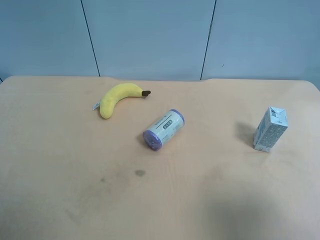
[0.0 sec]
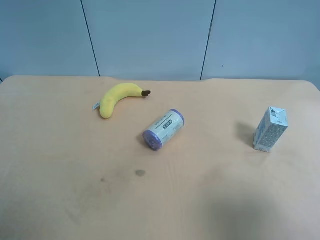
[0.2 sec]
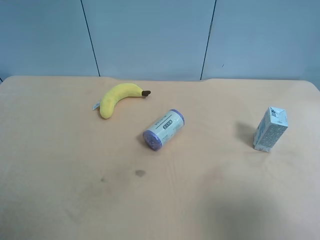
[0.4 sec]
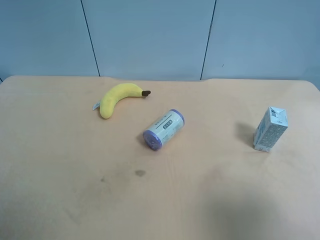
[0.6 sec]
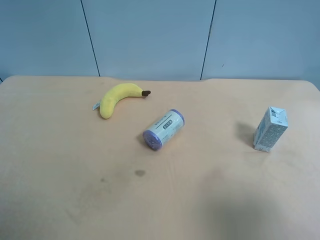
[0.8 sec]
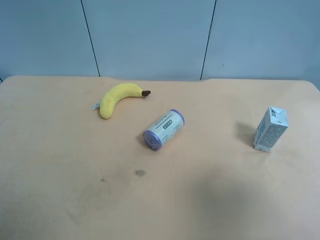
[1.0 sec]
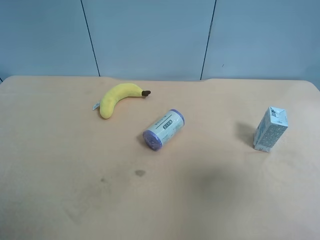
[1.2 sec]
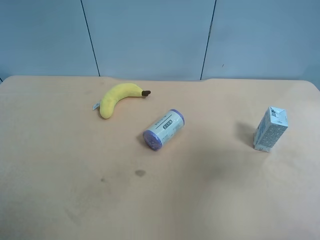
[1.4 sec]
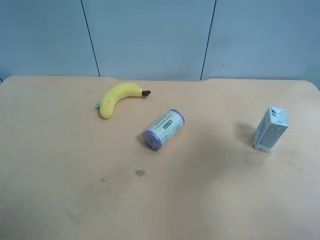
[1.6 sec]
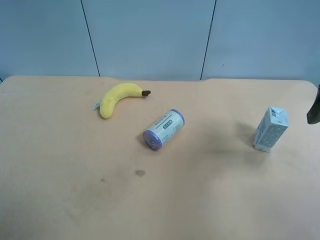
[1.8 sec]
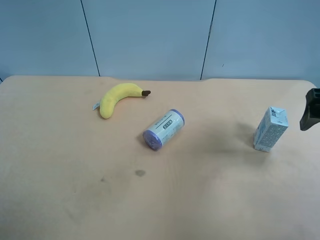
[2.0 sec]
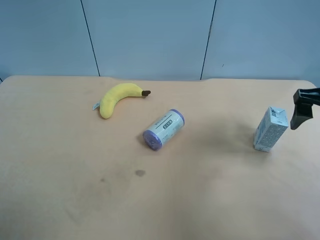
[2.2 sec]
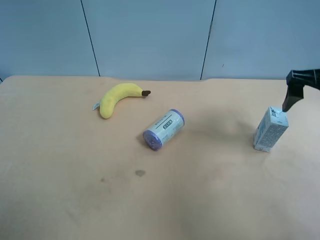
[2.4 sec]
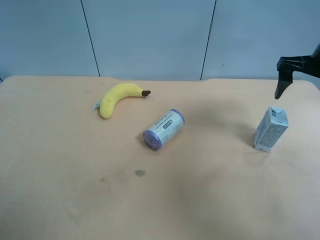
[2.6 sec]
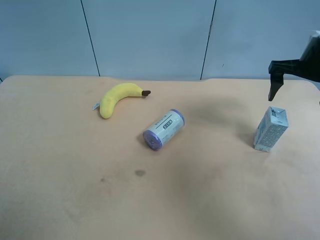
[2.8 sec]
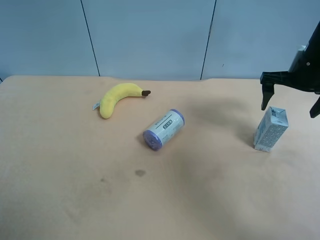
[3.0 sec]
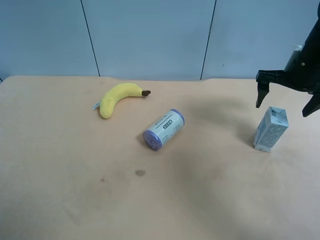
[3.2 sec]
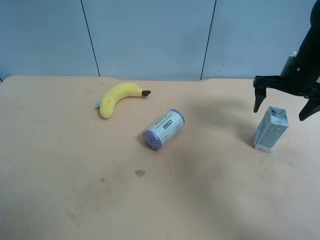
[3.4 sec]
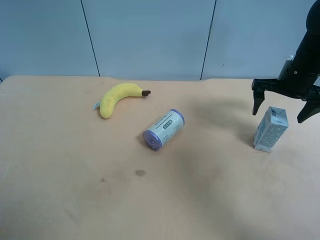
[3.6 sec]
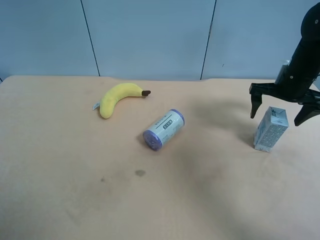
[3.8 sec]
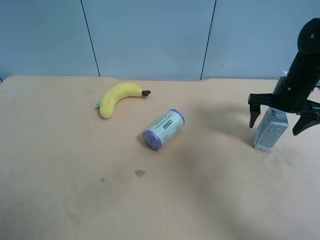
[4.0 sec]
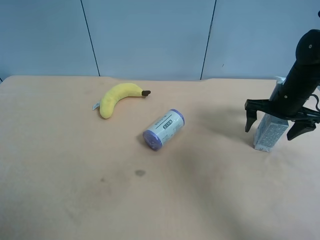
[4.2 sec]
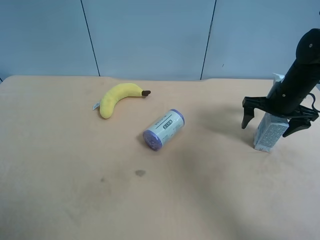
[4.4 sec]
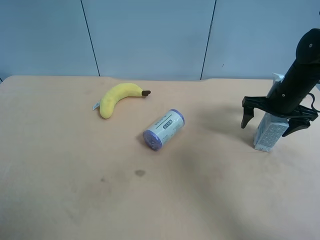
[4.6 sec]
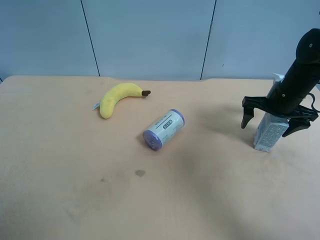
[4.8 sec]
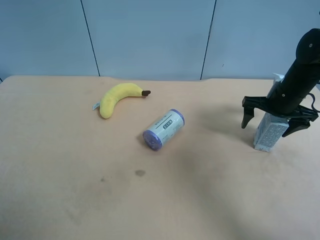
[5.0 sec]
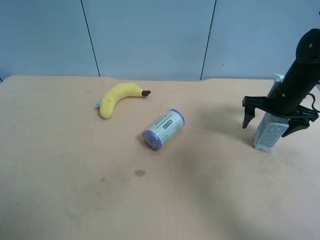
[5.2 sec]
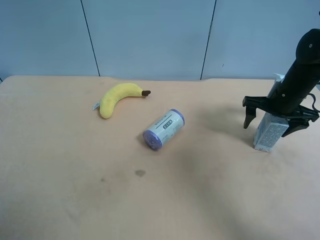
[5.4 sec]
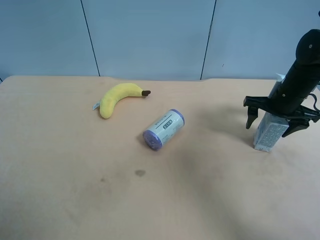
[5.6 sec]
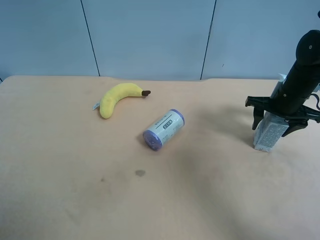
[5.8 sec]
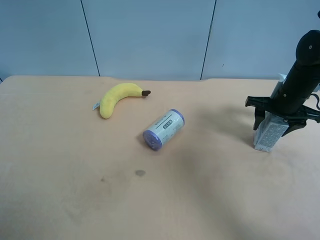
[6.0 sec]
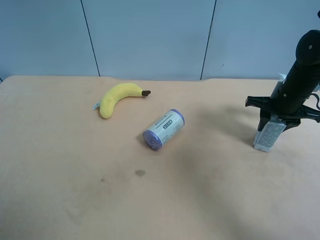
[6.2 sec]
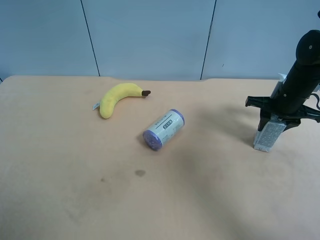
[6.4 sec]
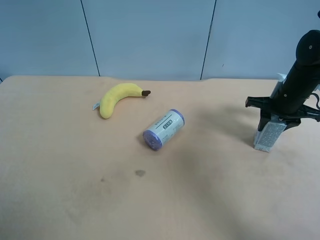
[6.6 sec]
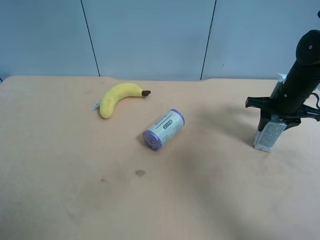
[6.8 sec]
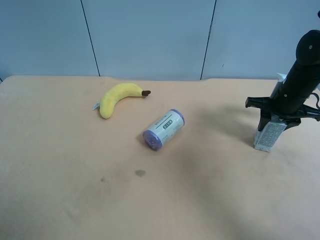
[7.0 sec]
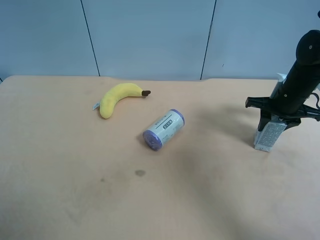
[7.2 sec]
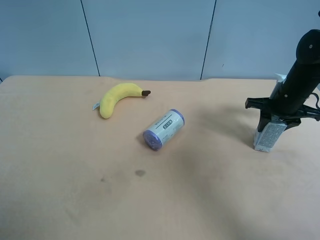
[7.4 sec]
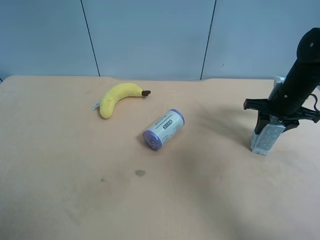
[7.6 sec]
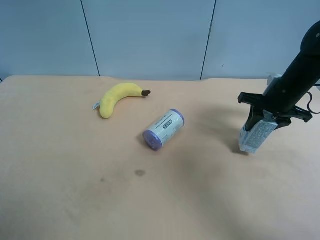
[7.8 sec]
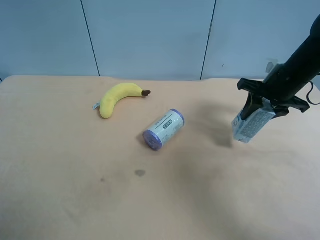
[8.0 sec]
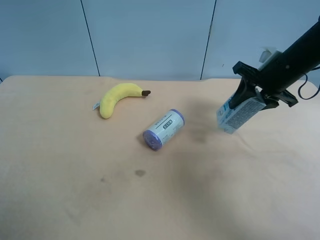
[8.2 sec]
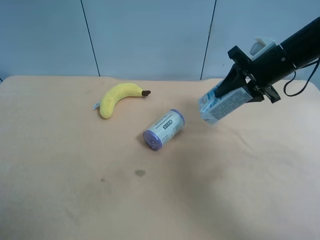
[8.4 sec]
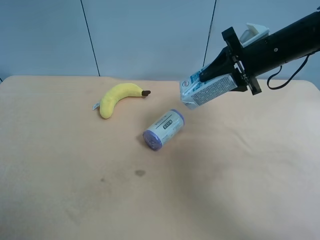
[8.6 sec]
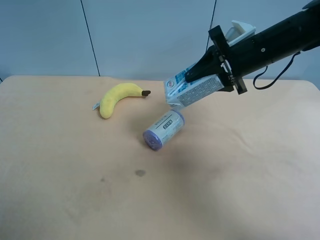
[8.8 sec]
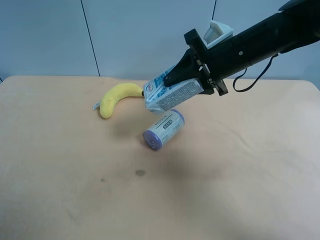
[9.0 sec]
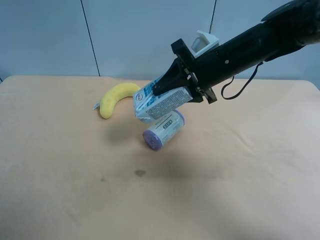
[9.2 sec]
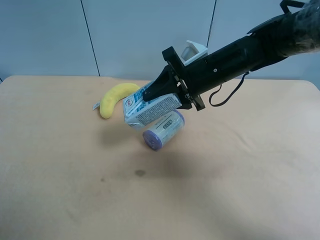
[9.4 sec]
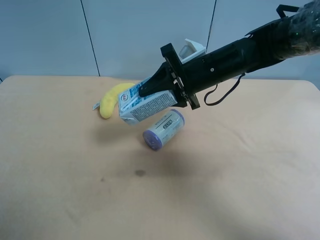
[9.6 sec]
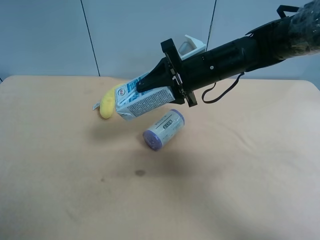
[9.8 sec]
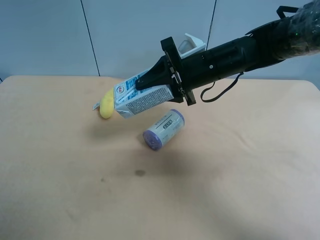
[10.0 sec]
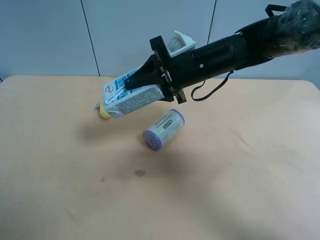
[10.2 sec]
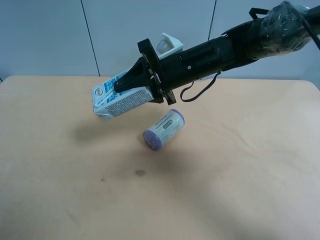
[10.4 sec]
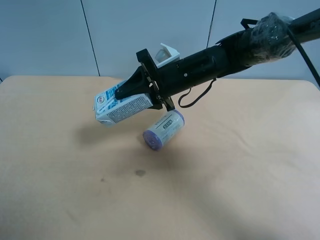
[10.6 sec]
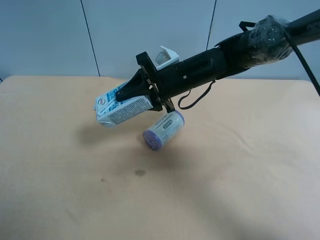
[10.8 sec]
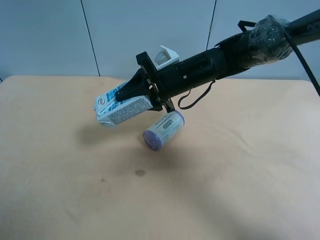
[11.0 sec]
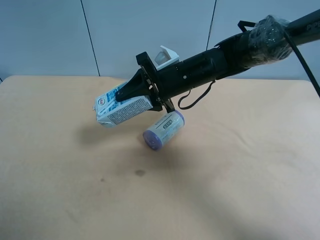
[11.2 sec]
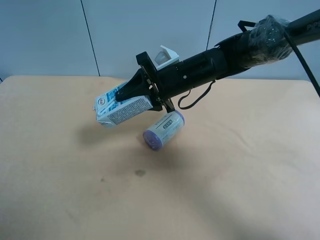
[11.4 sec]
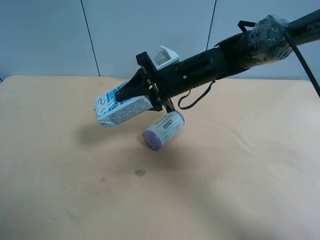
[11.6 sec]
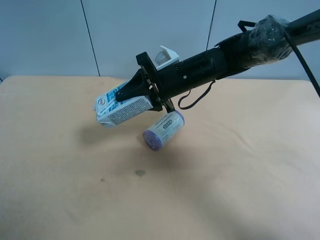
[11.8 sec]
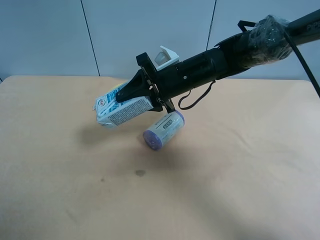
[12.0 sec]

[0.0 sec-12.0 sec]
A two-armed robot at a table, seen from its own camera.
Task of the whole recording: use the right gripper to pick up the item and transfer it from the right gripper to the left gripper.
0.0 sec to 1.6 sec: The right gripper heads forward, covering about 15 cm.
1.6 sec to 3.0 sec: The right gripper heads forward and downward, covering some 20 cm.
3.0 sec to 4.4 sec: The right gripper heads downward, covering roughly 5 cm.
4.4 sec to 6.0 sec: The right gripper closes its fingers.
6.0 sec to 7.6 sec: The grippers stay close to where they were, moving slightly.
7.6 sec to 9.0 sec: The right gripper goes about 20 cm to the left and upward.
9.0 sec to 10.4 sec: The right gripper is displaced to the left by approximately 5 cm.
10.4 sec to 12.0 sec: The left gripper travels forward by roughly 5 cm.

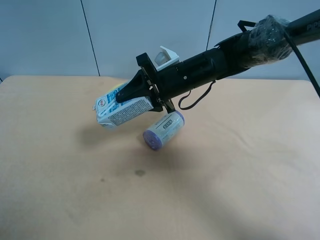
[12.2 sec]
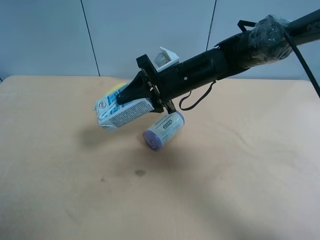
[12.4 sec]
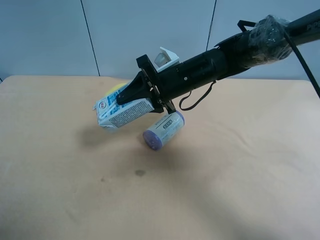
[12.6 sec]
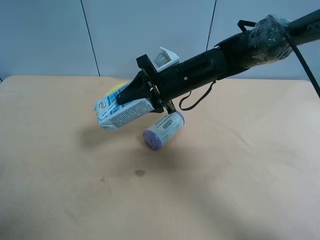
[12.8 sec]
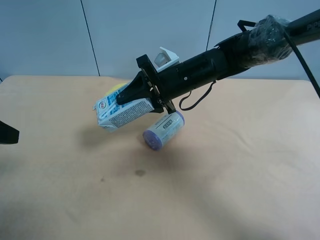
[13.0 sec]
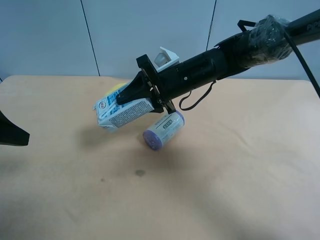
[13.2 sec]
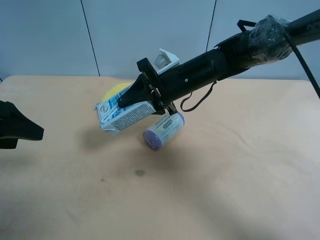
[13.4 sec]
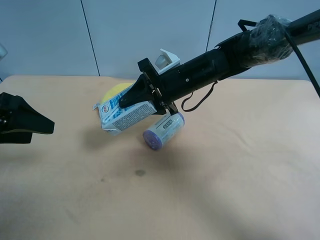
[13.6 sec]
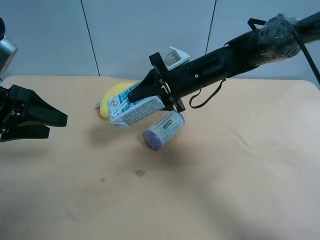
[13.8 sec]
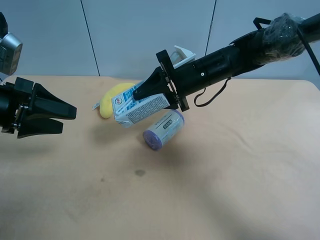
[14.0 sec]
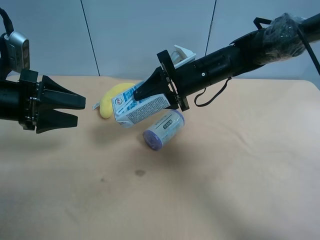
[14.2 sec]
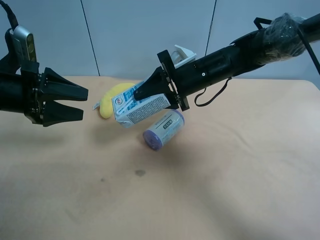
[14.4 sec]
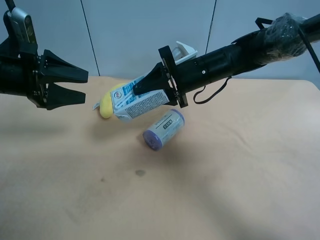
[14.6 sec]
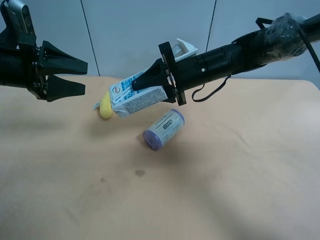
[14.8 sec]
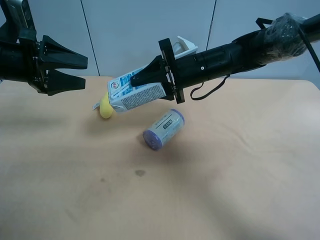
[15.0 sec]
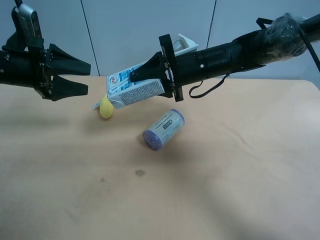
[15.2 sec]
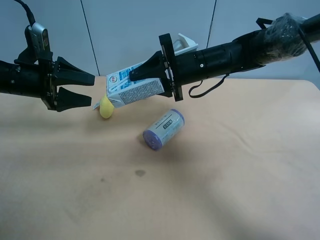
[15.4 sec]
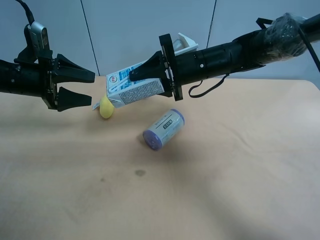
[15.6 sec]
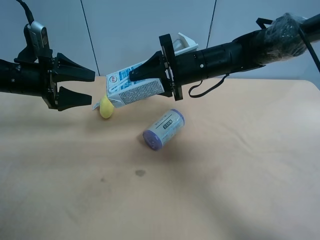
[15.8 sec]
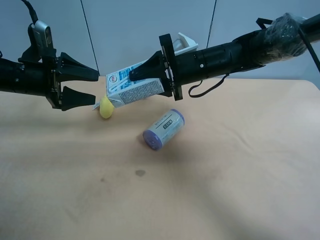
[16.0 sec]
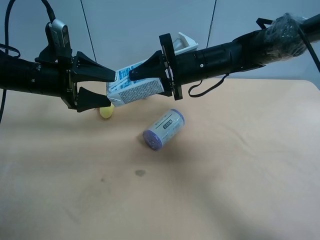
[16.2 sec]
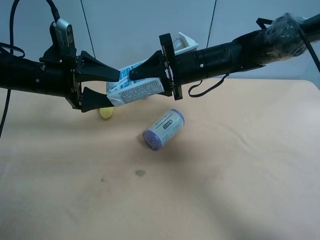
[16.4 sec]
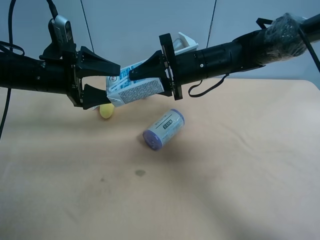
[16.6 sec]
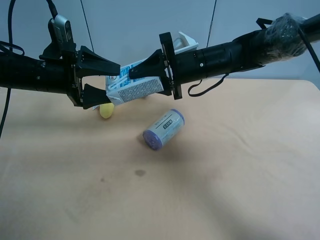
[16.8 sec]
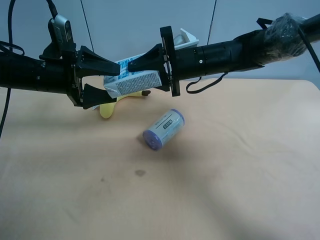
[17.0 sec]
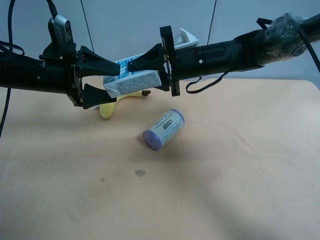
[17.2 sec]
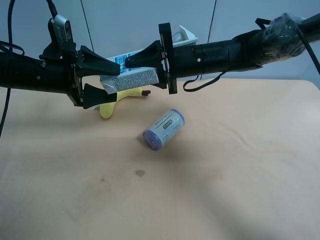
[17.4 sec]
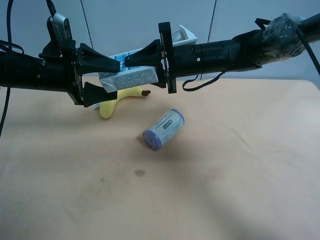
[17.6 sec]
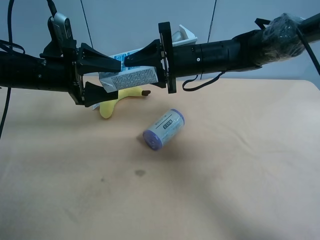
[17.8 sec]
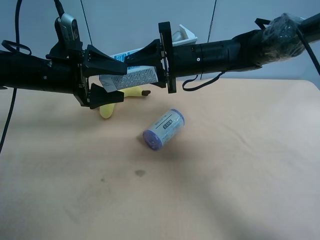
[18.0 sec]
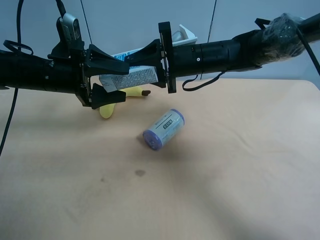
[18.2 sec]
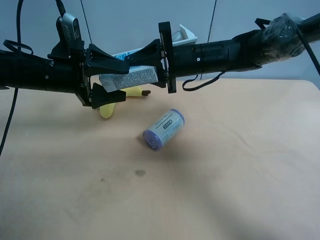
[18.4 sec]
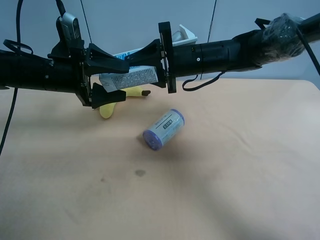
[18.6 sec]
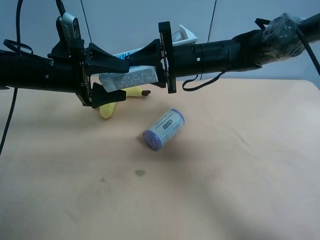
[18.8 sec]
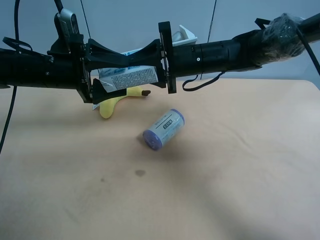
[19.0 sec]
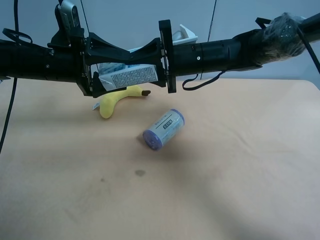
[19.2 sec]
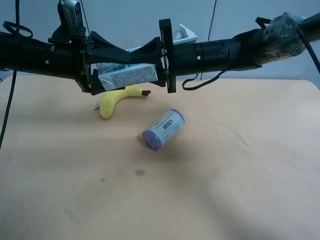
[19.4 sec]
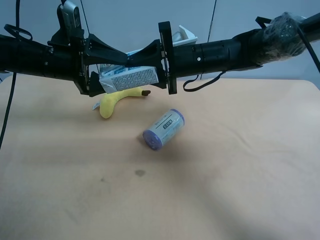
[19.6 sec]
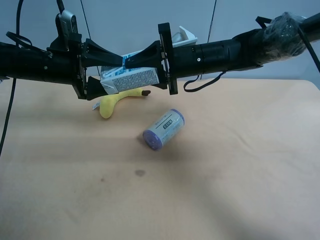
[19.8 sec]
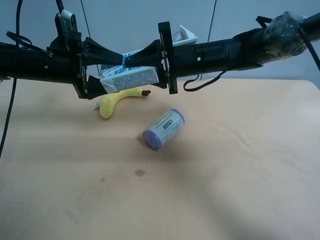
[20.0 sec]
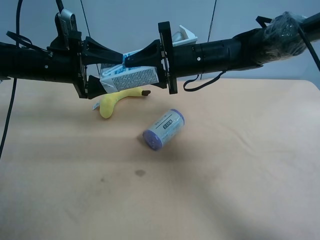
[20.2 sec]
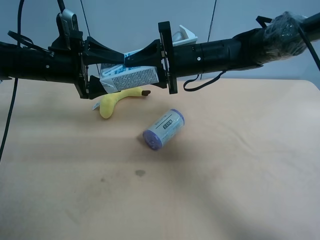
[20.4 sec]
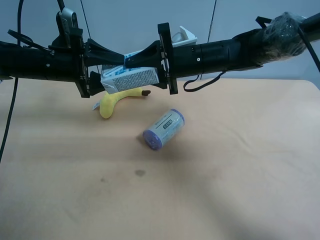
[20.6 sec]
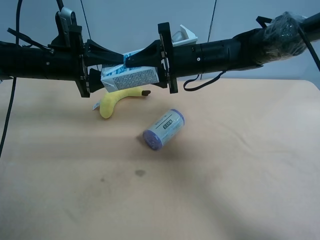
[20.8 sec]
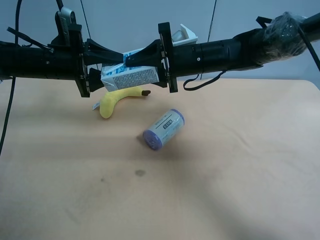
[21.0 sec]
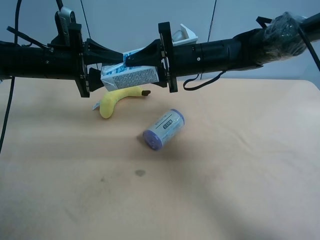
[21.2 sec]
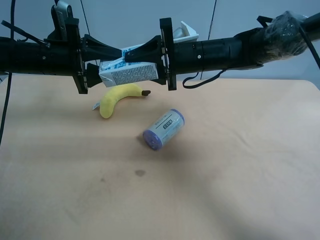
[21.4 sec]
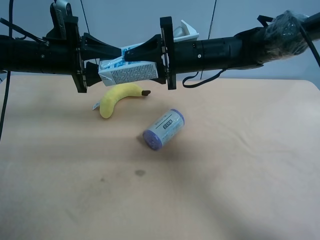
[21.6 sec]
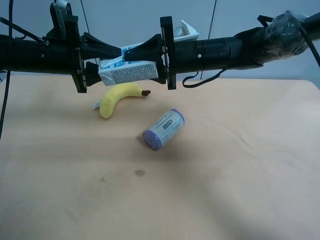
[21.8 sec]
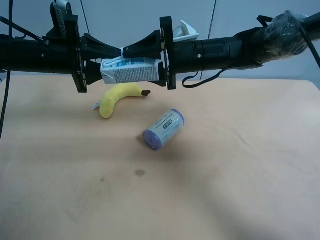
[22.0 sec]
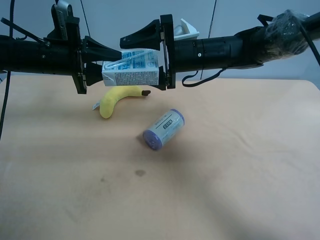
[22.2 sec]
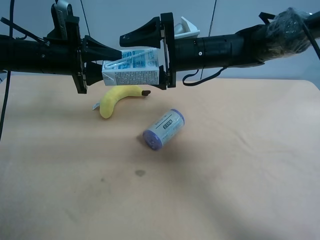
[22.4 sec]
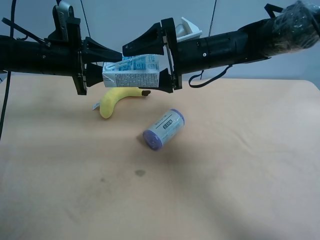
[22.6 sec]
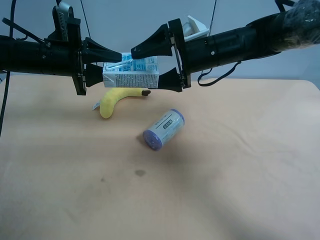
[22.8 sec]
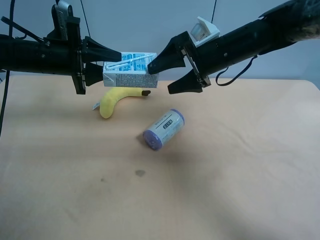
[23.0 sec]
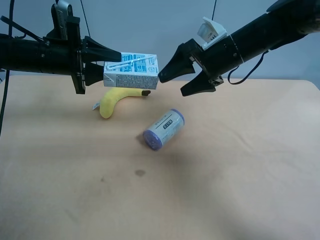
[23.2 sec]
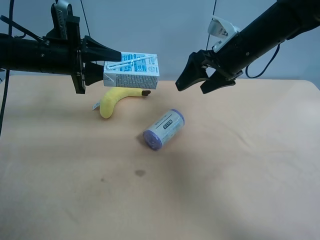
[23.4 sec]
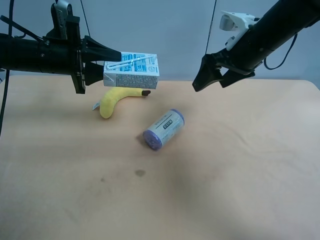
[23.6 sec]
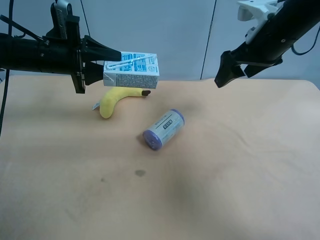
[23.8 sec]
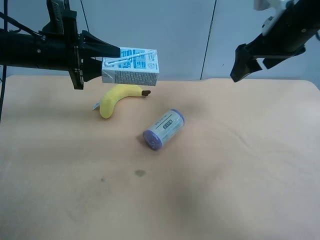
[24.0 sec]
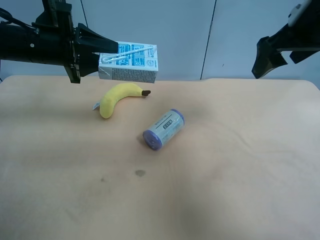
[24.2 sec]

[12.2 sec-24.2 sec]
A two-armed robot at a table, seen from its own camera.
Task of the whole recording: use the right gripper to pick up the item and transfer it from the right gripper to the left gripper.
12.2 sec to 13.8 sec: The left gripper is displaced forward and downward by some 15 cm.
13.8 sec to 15.2 sec: The left gripper goes roughly 10 cm forward.
15.2 sec to 16.6 sec: The left gripper heads to the right, covering approximately 5 cm.
16.6 sec to 19.8 sec: There are only small adjustments of the grippers.
19.8 sec to 21.2 sec: The left gripper closes up.
21.2 sec to 22.6 sec: The right gripper opens up.
22.6 sec to 24.2 sec: The right gripper goes about 20 cm to the right, upward and backward.
